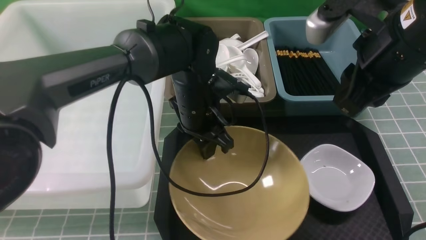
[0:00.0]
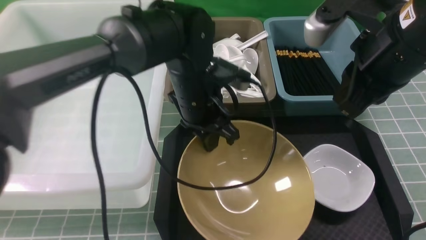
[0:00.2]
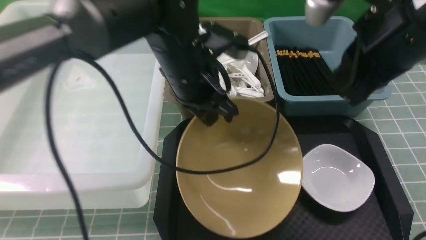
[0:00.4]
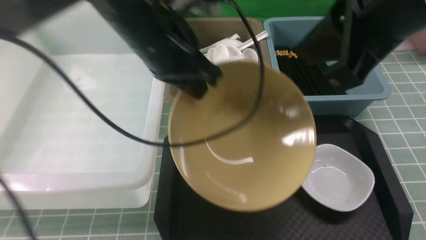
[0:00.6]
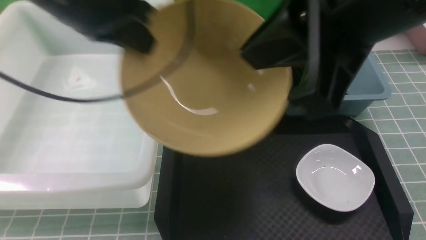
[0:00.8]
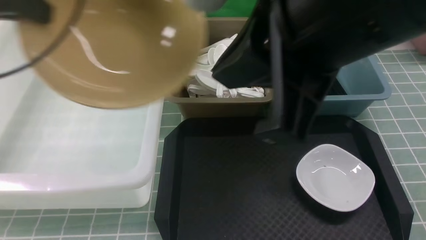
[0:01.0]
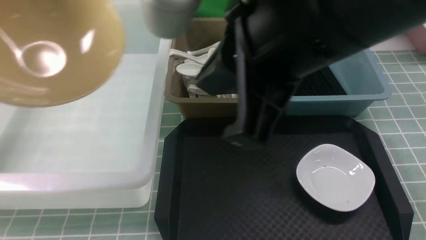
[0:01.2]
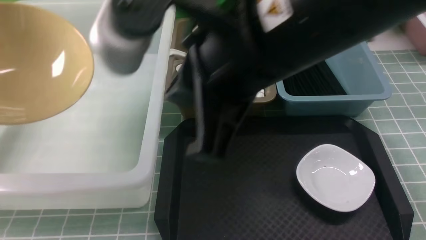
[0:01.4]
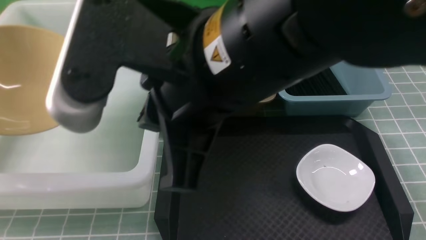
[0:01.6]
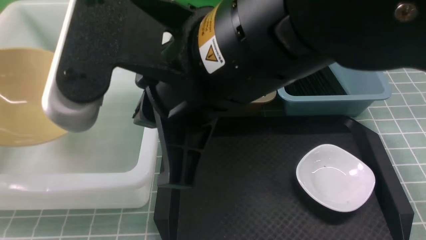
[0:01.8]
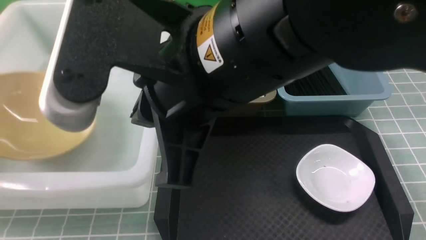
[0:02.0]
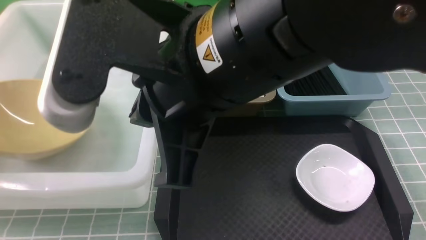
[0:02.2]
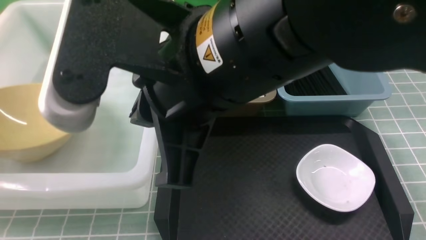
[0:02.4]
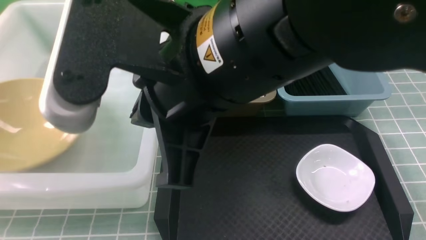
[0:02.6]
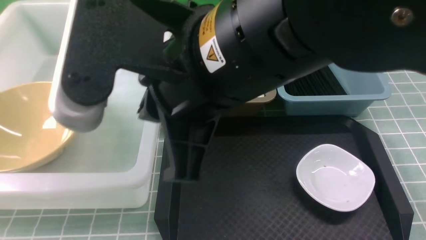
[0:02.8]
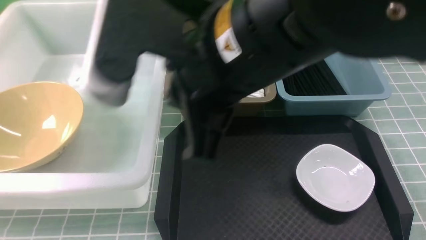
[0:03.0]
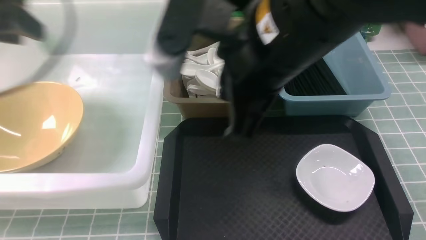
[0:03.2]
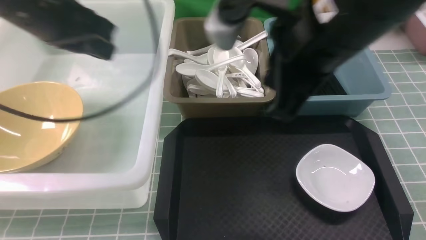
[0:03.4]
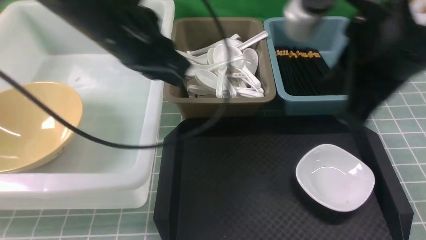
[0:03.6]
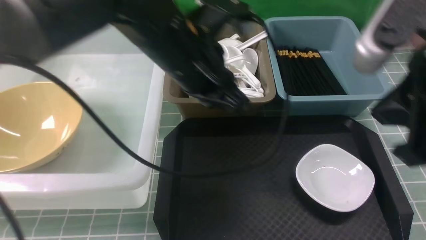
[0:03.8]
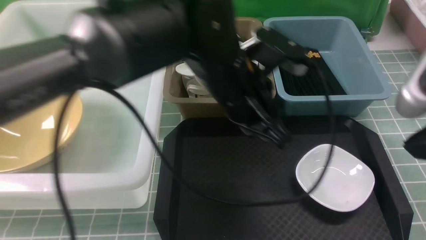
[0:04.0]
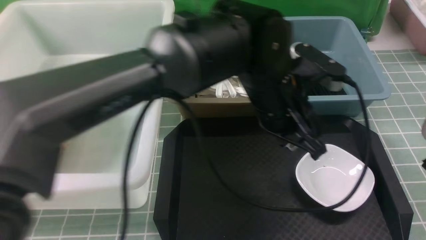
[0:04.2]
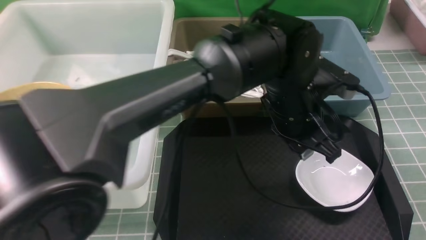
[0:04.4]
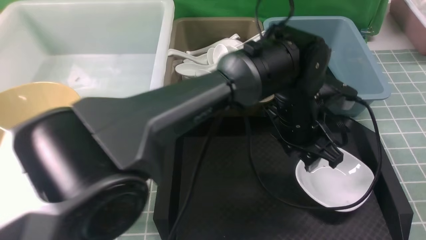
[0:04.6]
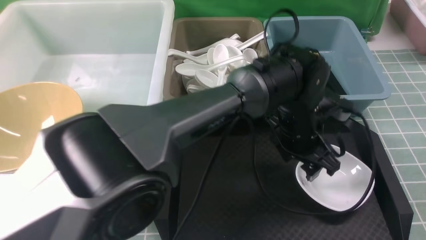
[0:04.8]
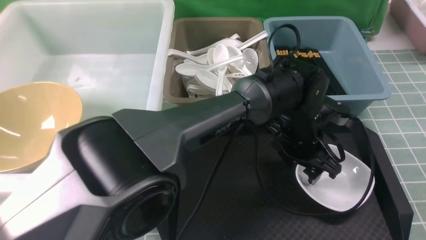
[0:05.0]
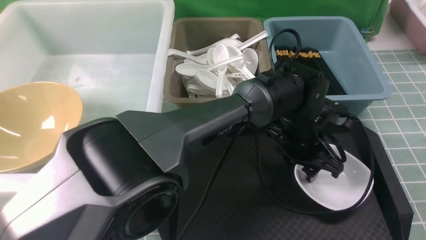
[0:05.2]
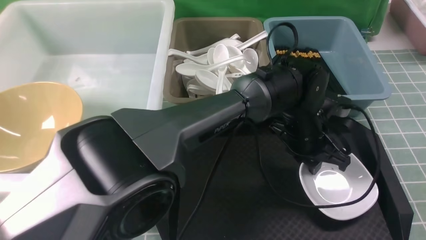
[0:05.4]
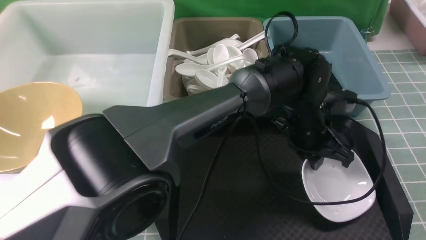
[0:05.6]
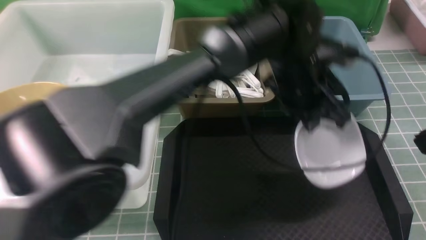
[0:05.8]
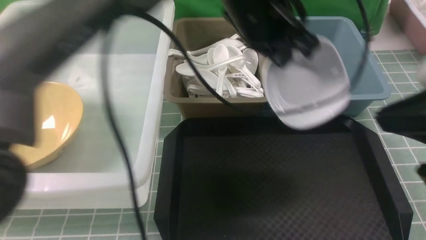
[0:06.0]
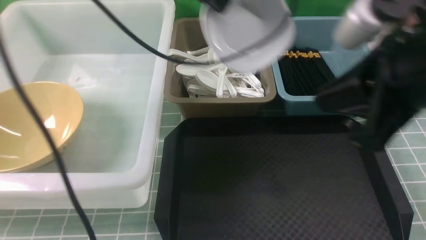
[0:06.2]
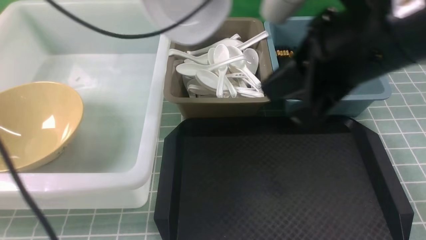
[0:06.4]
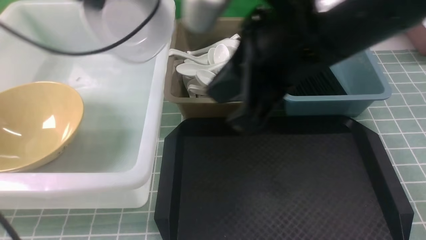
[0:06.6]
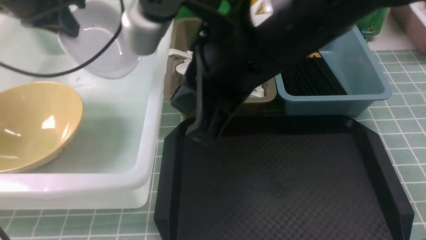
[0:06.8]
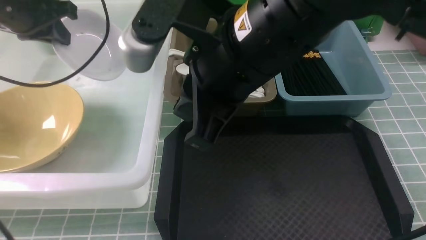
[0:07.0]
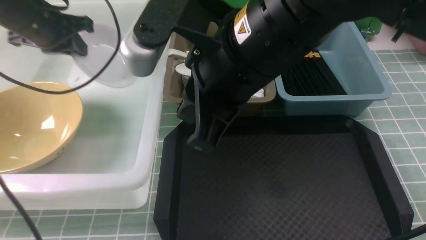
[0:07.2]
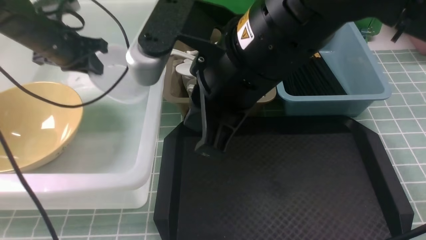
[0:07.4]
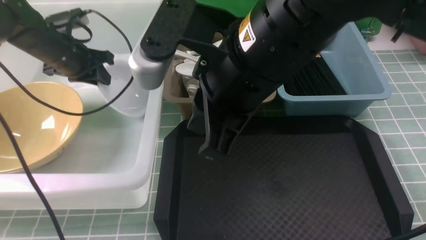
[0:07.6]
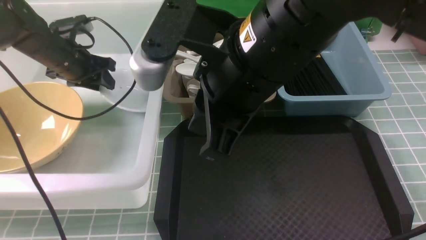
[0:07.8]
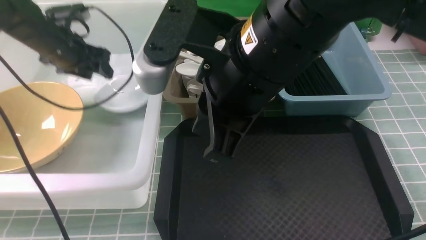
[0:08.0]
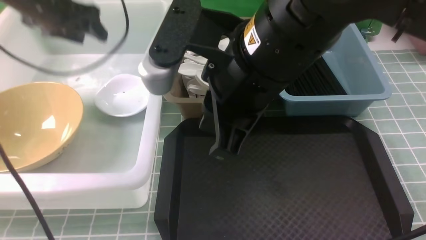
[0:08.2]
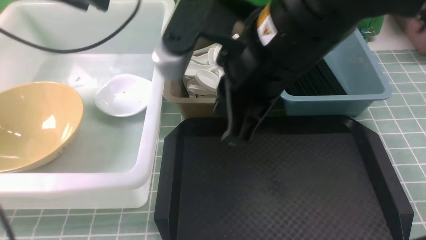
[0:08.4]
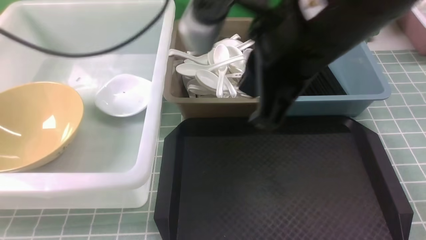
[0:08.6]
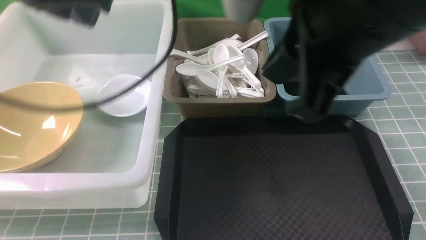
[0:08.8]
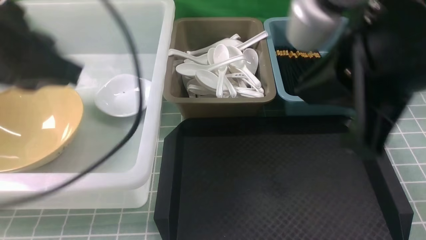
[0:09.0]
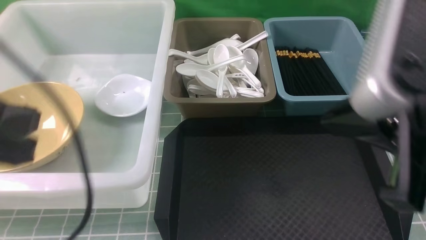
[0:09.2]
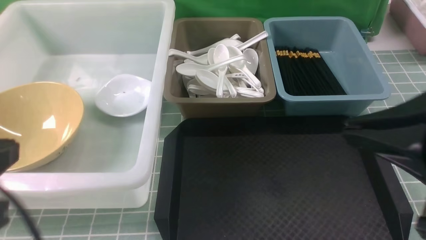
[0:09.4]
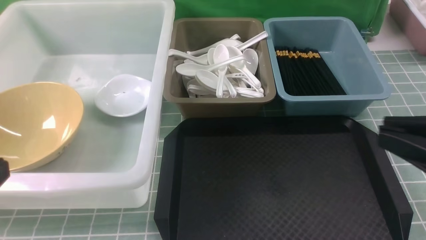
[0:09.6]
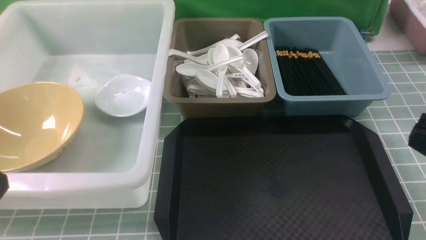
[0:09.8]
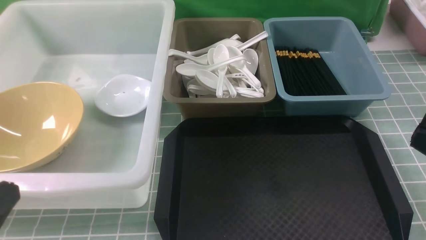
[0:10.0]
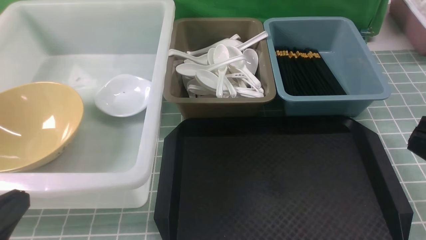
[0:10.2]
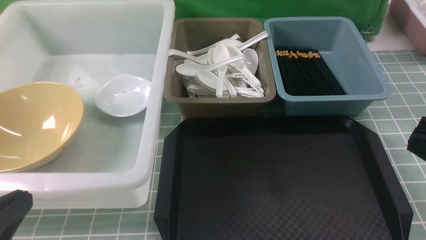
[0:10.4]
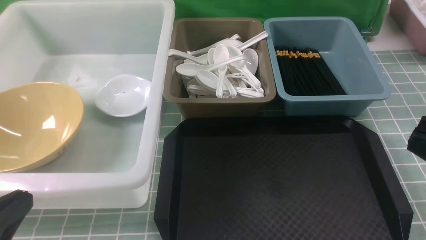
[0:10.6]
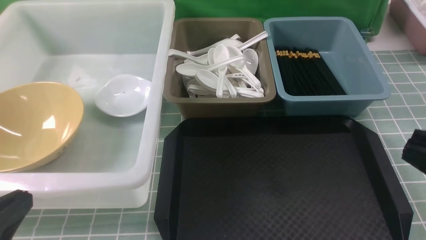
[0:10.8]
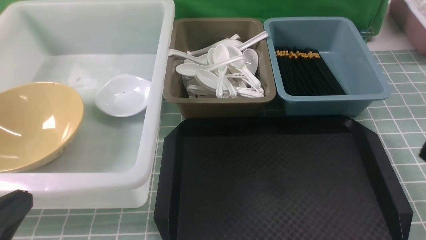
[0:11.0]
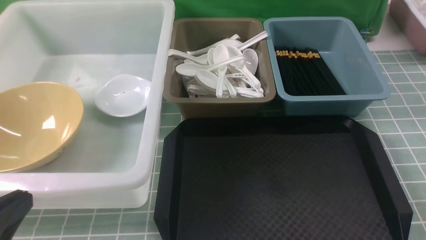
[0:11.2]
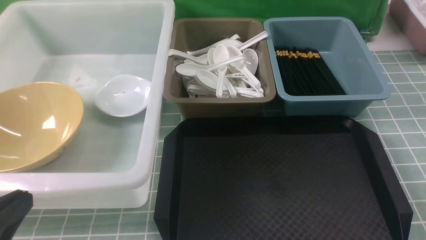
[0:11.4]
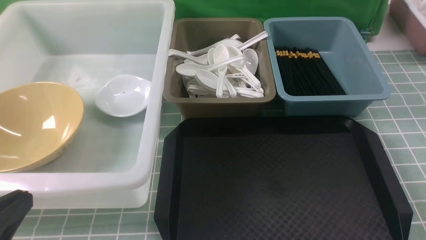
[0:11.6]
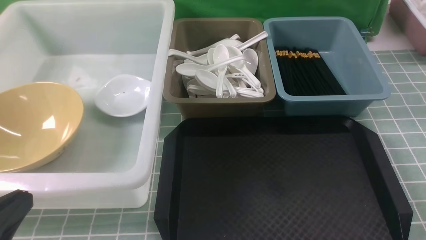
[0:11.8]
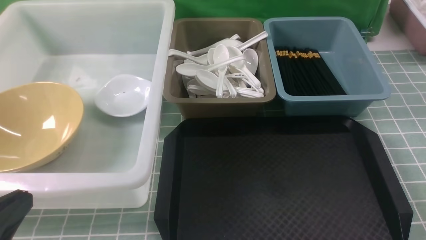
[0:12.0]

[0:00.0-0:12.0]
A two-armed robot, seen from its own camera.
Task of the whole recording: on blue table put chopsticks spoon bowls plates into blue grey white boxes.
Step, 0:00.4 to 0:02.8: use the left arm to put the noodle bowl into the large storage box on the left.
Step, 0:03.0 to 0:05.6: use the left arm to grab the plate.
Step, 0:05.8 to 0:08.2: use the left arm to put the plate into the large storage box on the left.
0:00.0 to 0:01.6: The right gripper travels to the left and backward by roughly 20 cm, and closes its fingers; the left gripper heads to the left, covering roughly 40 cm.
0:01.6 to 0:03.0: The left gripper is displaced upward and to the right by roughly 10 cm, and opens its fingers.
0:03.0 to 0:04.4: The right gripper moves to the right, some 20 cm; the left gripper moves to the right, about 40 cm, and closes its fingers.
0:04.4 to 0:06.0: The left gripper goes roughly 15 cm upward and to the left, and closes up. The right gripper moves approximately 5 cm.
0:06.0 to 0:07.6: The right gripper shifts about 20 cm to the left and forward; the left gripper is displaced to the left and downward by about 35 cm.
0:07.6 to 0:09.0: The left gripper is displaced backward and upward by roughly 30 cm, and opens, then closes once more. Meanwhile the right gripper goes approximately 15 cm to the right and backward.
0:09.0 to 0:10.4: The left gripper goes roughly 20 cm downward and backward; the right gripper is displaced to the right, backward and downward by roughly 15 cm.

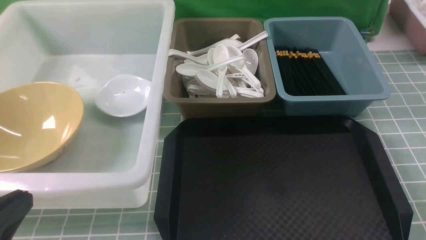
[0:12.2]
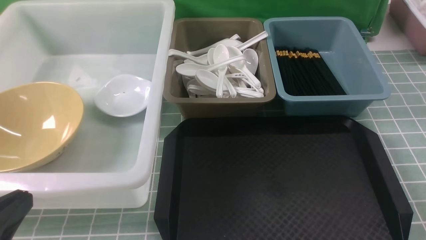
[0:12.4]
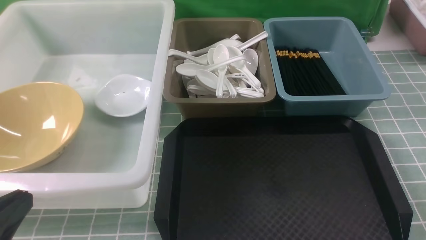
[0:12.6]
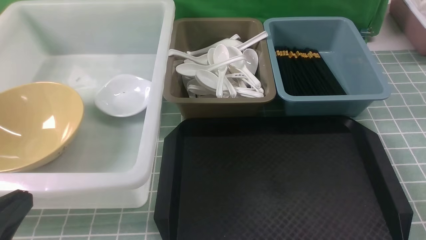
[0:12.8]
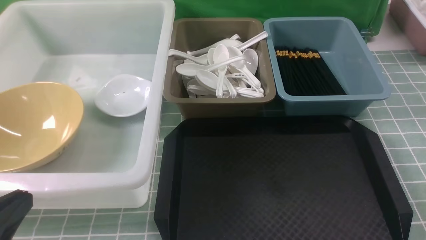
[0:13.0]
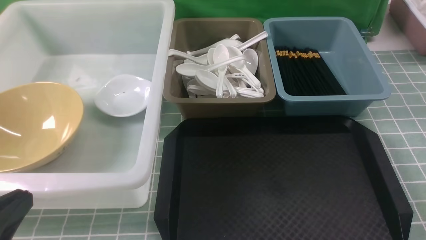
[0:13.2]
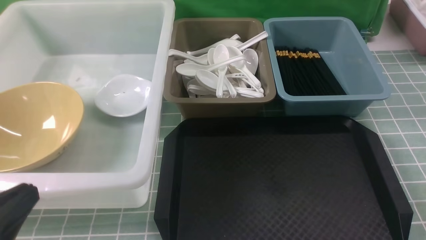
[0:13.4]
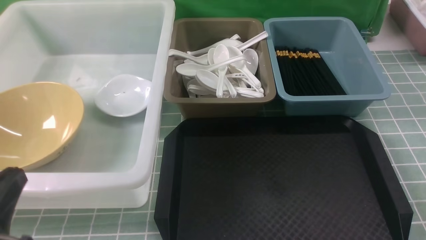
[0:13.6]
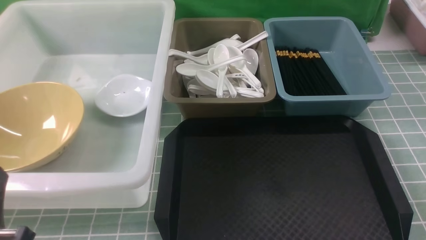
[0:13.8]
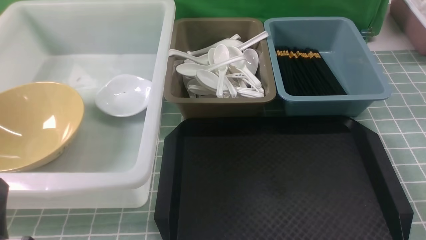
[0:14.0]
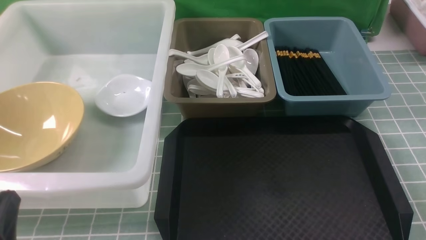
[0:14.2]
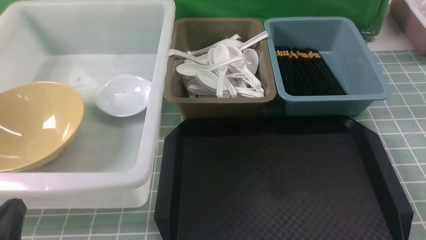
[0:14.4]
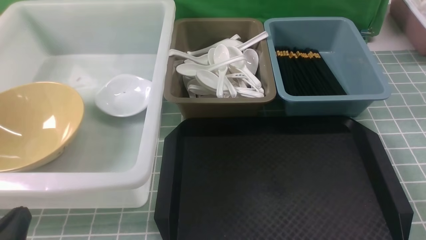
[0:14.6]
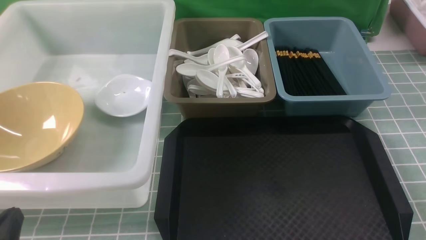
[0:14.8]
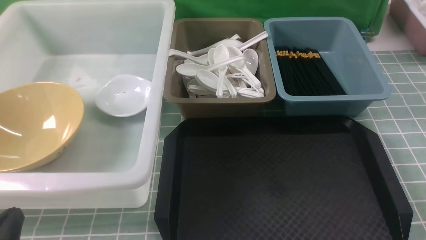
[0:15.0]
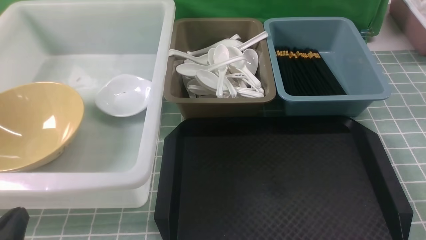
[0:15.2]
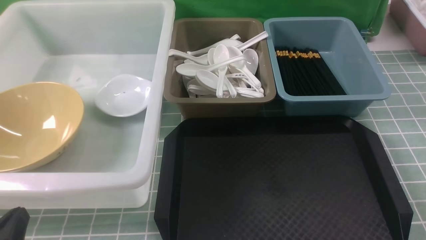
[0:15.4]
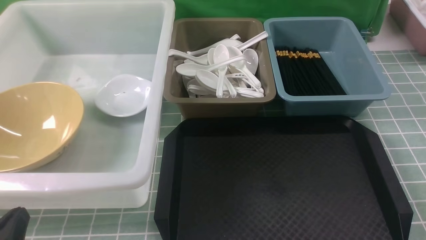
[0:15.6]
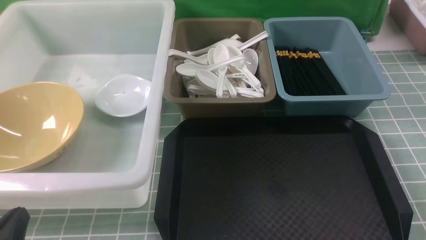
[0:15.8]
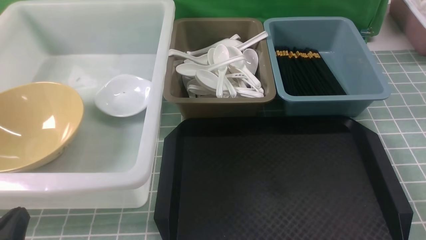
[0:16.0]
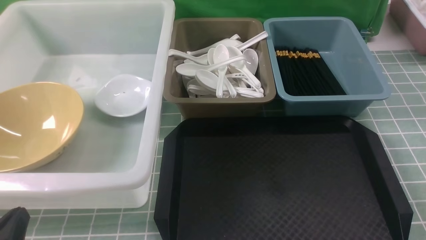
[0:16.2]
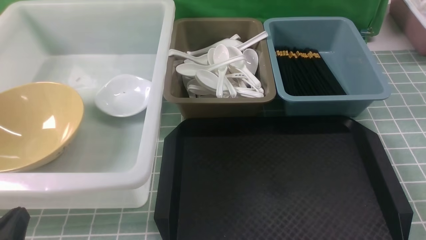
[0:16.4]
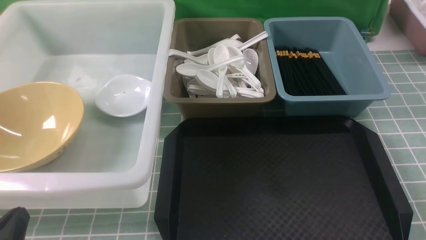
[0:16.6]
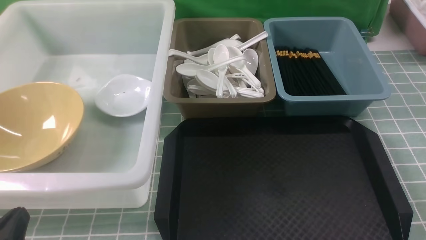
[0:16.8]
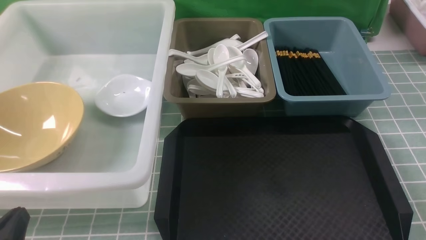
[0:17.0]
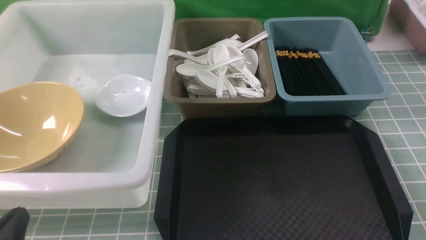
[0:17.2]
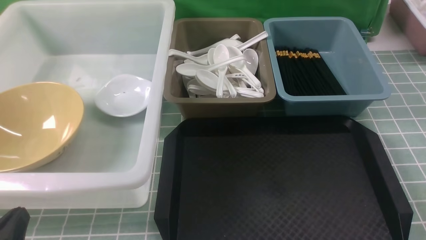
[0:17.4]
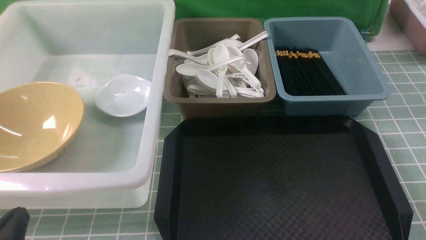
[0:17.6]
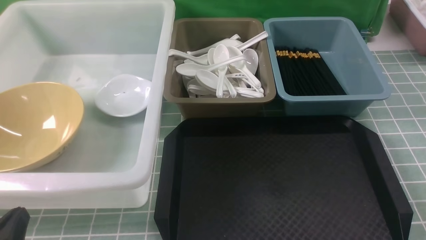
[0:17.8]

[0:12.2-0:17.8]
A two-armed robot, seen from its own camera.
Task of the whole recording: on blue table put chopsticks spoon bowls plates into blue grey white boxes.
0:12.2 to 0:13.6: The grippers make only small movements.
0:13.6 to 0:15.0: The left gripper goes some 5 cm downward.
0:15.0 to 0:17.8: Both grippers stay about where they are.
